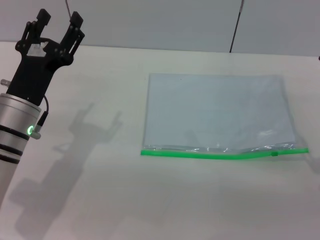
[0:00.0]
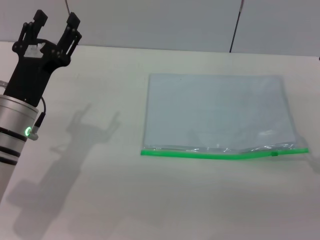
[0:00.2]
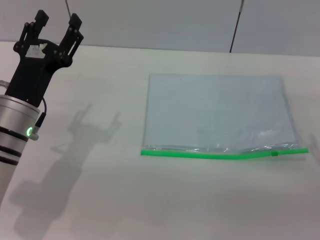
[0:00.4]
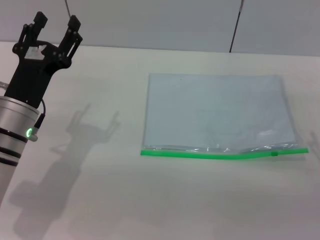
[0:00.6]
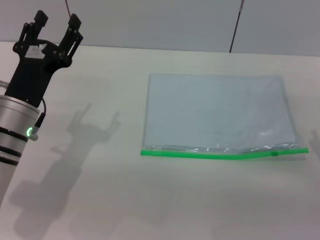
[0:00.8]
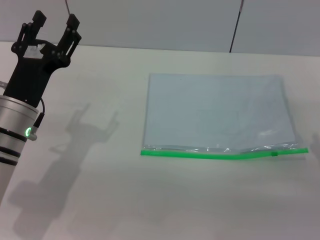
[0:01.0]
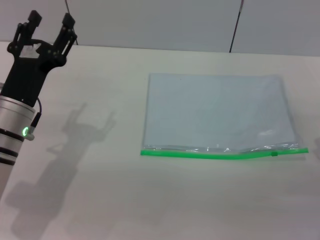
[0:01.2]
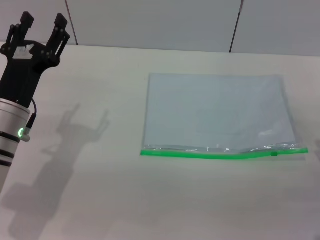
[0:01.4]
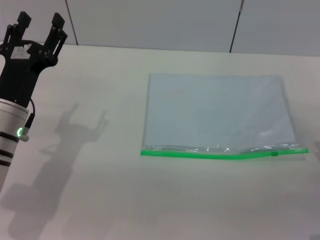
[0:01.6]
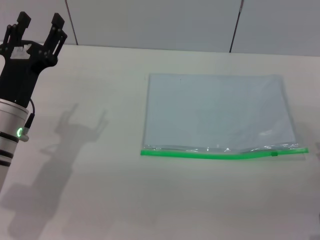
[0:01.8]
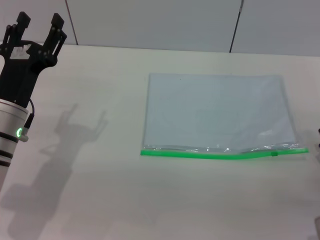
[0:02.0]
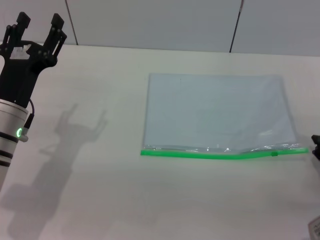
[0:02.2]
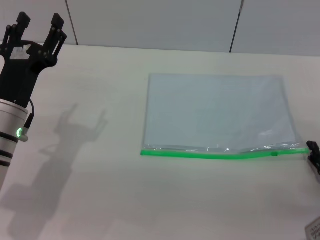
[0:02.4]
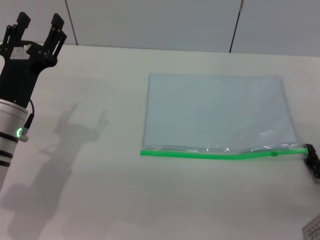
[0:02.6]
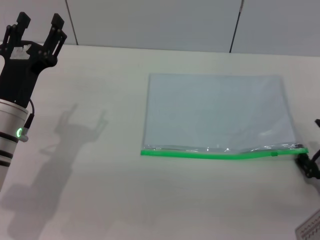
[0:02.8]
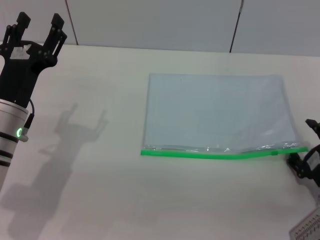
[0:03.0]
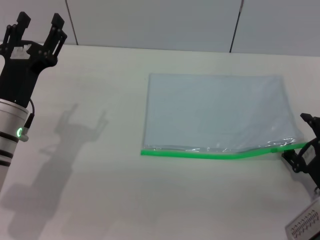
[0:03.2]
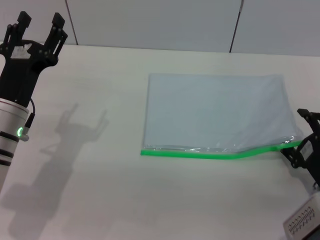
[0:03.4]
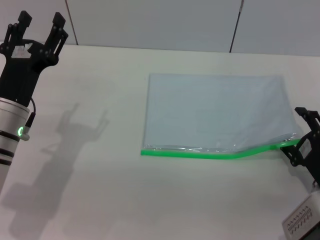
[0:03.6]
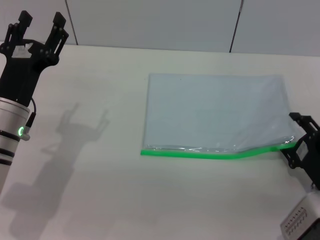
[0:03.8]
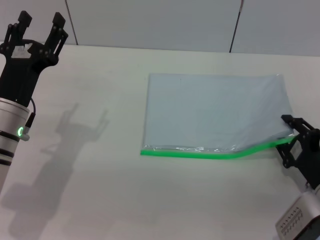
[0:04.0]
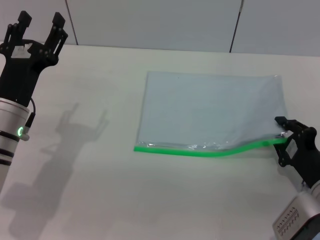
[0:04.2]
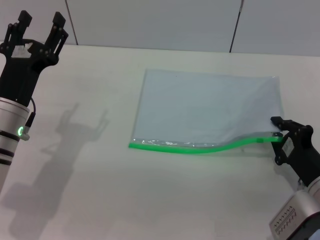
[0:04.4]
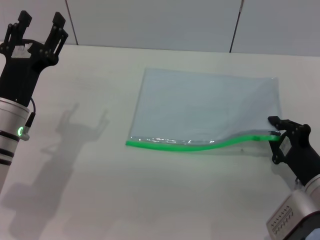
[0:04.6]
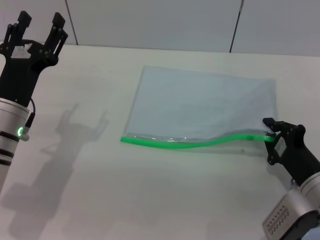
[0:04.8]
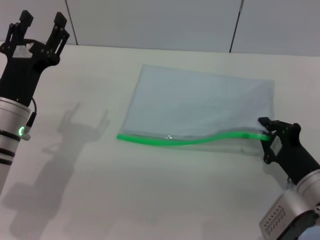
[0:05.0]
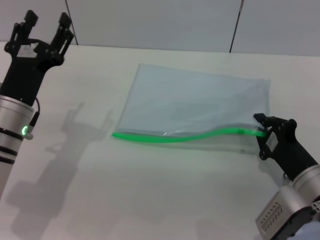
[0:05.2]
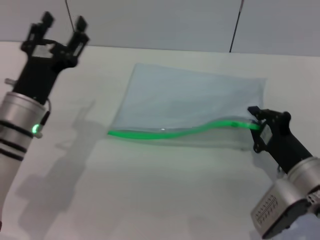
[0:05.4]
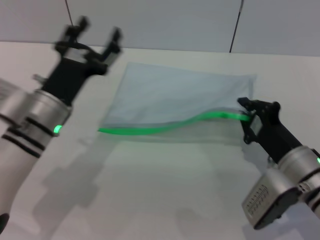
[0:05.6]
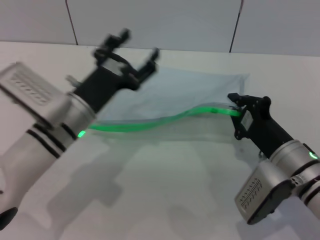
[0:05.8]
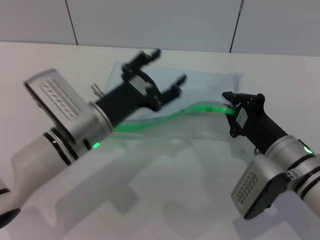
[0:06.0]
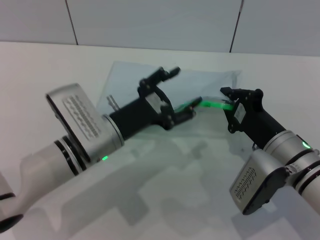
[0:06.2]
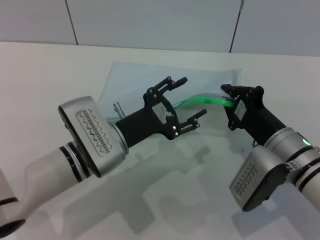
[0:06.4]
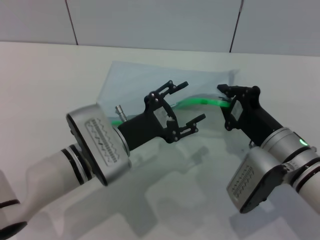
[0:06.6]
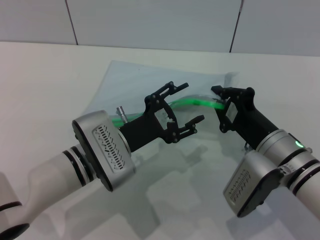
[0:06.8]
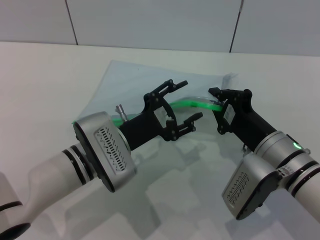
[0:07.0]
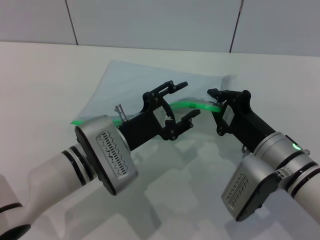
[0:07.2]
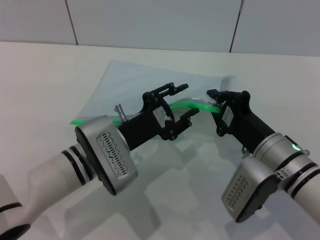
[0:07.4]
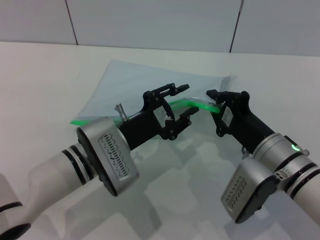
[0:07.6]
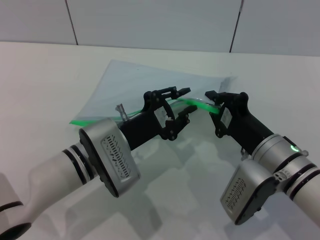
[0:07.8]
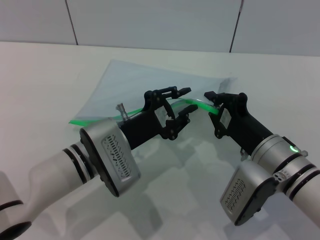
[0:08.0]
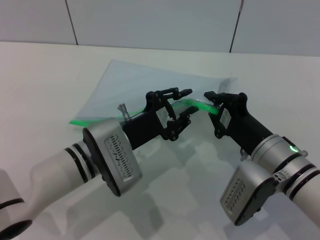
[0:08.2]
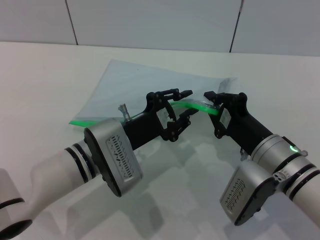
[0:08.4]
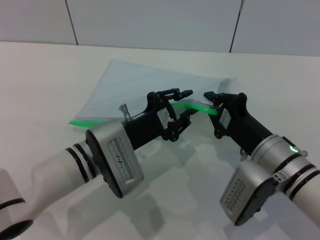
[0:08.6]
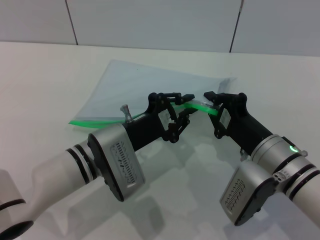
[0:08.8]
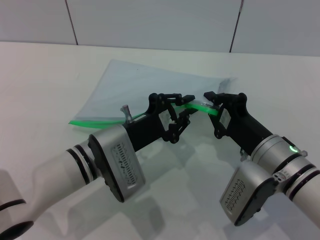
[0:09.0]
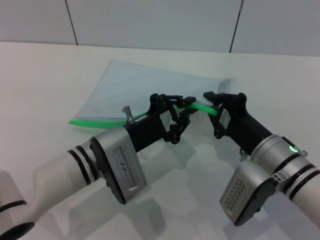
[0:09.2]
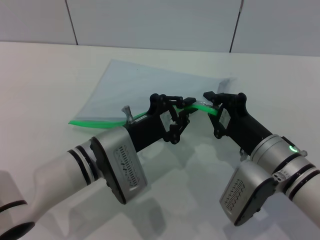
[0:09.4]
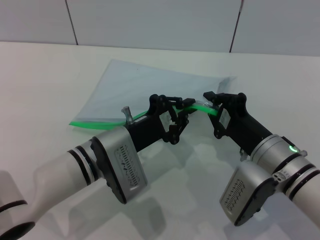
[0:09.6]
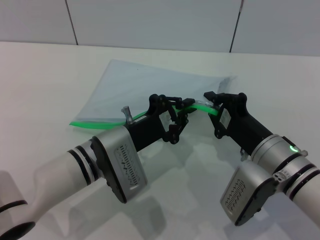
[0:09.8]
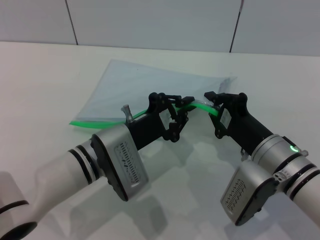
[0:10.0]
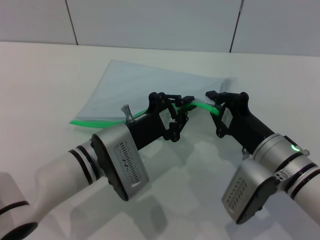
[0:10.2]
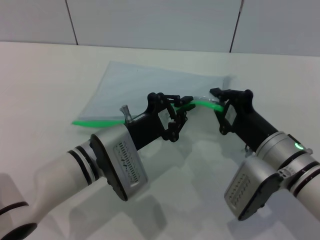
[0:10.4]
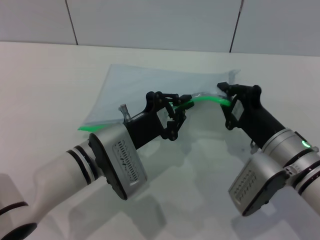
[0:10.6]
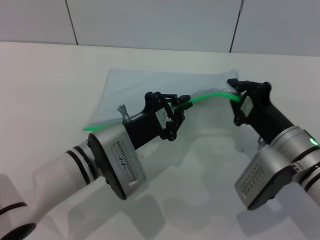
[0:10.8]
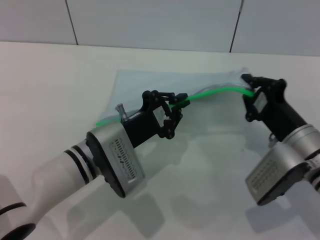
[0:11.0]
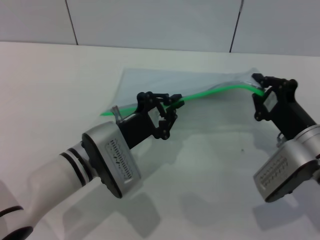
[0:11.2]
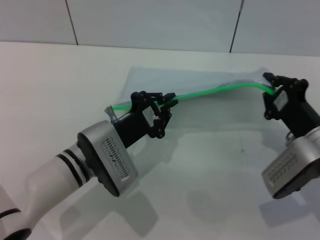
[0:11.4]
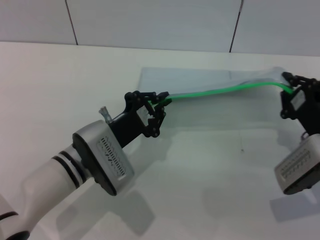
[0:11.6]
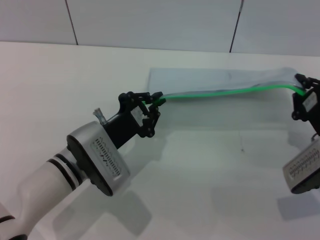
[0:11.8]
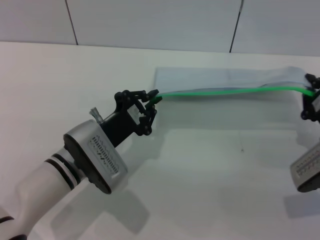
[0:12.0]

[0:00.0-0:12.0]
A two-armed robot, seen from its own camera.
Step, 0:00.0 to 0:06.0: Pick up the transparent plastic bag with the right gripper.
0:01.6 to 0:03.0: The grippers stay close to where they were, moving slightly.
0:03.0 to 0:04.4: The right gripper closes its fingers.
0:04.4 to 0:06.0: The right gripper travels to the left by approximately 5 cm. The left gripper is displaced to the right by about 10 cm.
0:07.6 to 0:09.0: The left gripper closes its fingers.
0:09.0 to 0:10.4: The two grippers keep their place.
0:10.4 to 0:12.0: The right gripper shifts roughly 10 cm to the right.

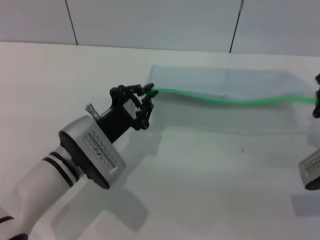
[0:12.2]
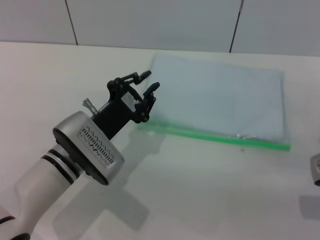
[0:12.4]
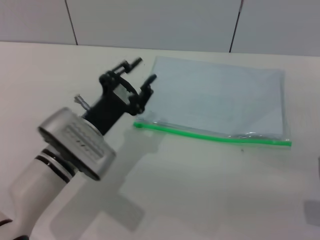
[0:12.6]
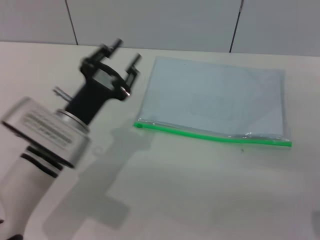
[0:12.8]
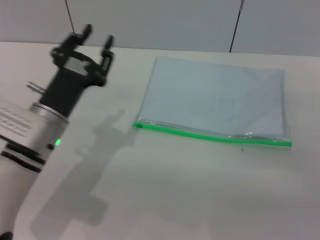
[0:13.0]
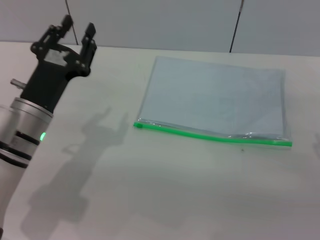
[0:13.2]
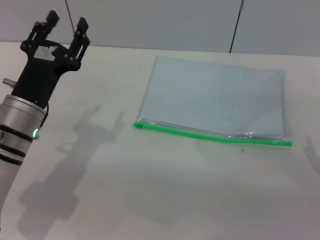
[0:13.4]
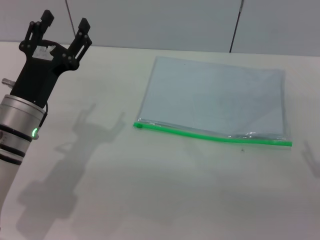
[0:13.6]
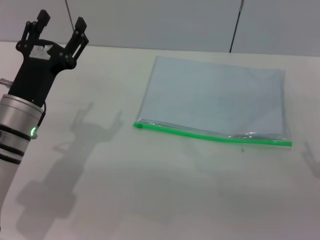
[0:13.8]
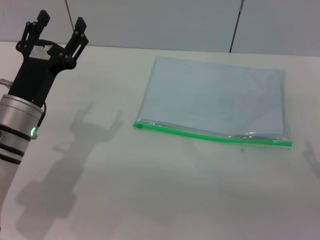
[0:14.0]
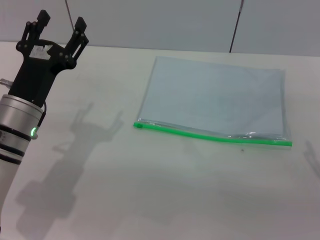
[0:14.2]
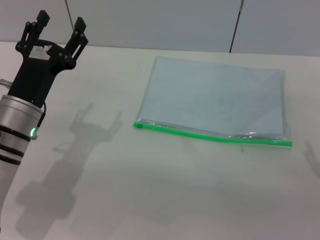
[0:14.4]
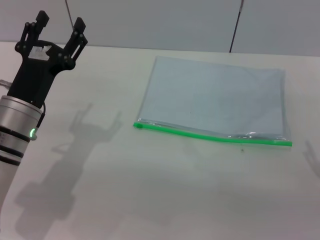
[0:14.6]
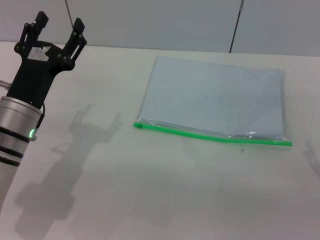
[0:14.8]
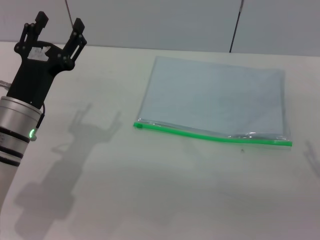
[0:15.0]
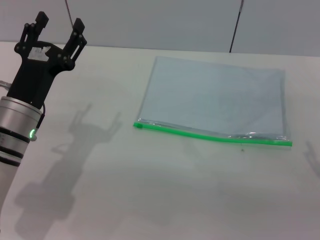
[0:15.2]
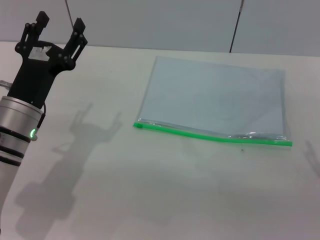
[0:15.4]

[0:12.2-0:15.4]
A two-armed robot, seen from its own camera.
Step, 0:12.4 to 0:12.6: Place the transparent plastic bag.
0:12.2 to 0:13.8: The right gripper ends up some 5 cm from where it was, and opens its fingers, while the left gripper moves to the left, some 5 cm, and opens.
0:13.8 to 0:15.4: Both grippers stay put.
